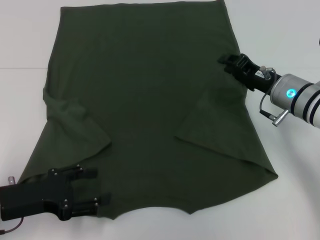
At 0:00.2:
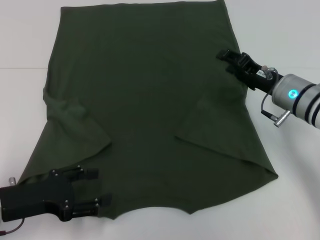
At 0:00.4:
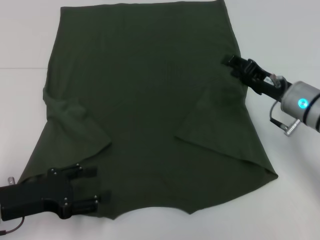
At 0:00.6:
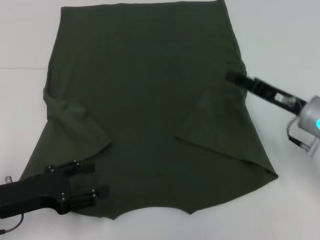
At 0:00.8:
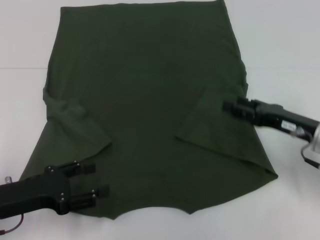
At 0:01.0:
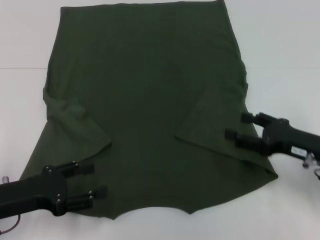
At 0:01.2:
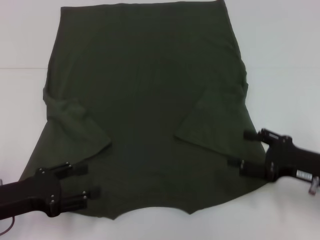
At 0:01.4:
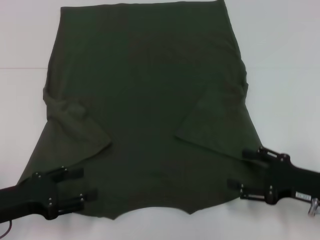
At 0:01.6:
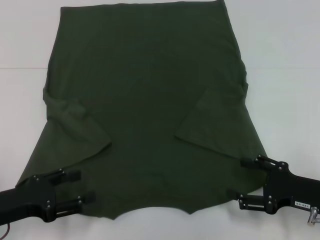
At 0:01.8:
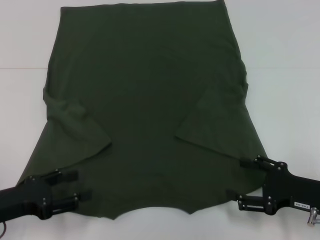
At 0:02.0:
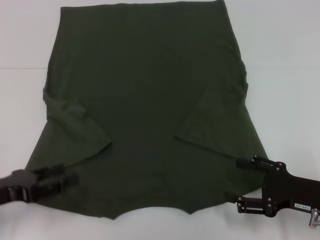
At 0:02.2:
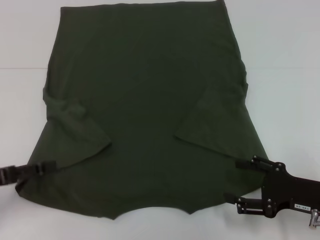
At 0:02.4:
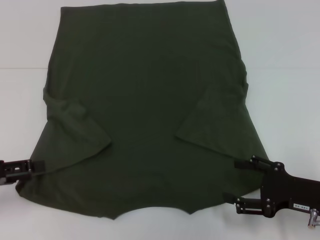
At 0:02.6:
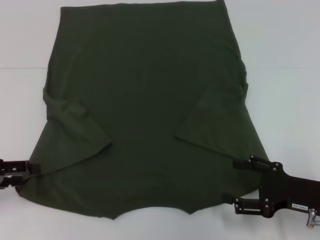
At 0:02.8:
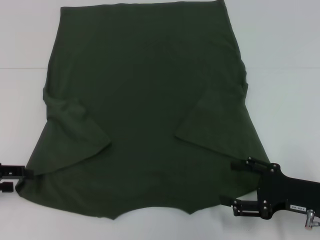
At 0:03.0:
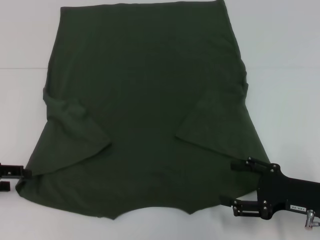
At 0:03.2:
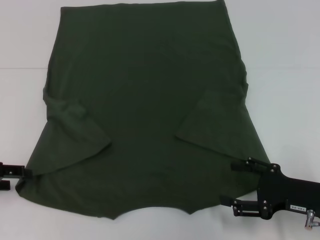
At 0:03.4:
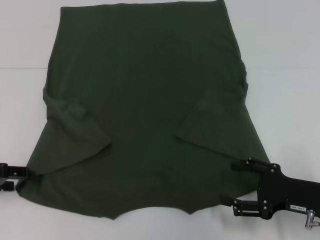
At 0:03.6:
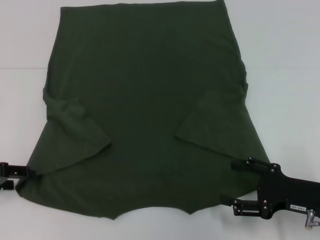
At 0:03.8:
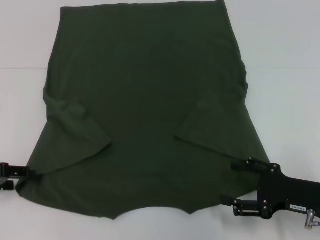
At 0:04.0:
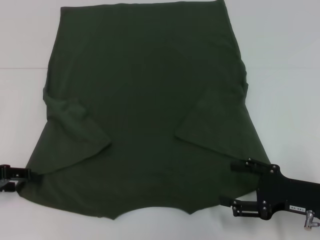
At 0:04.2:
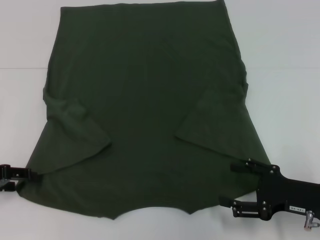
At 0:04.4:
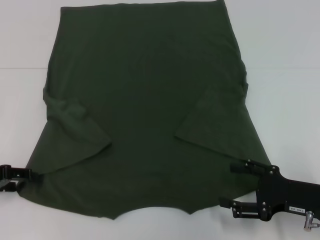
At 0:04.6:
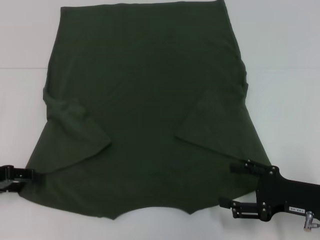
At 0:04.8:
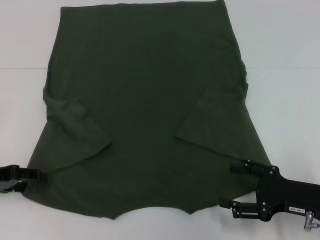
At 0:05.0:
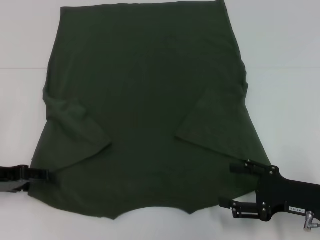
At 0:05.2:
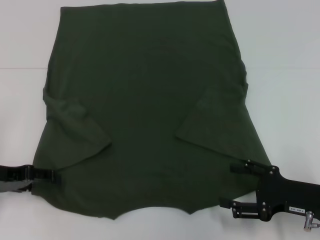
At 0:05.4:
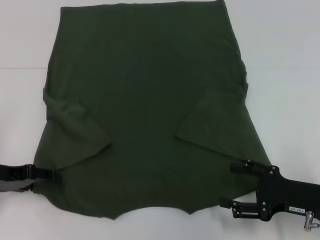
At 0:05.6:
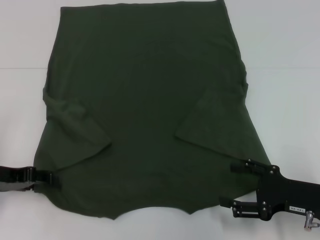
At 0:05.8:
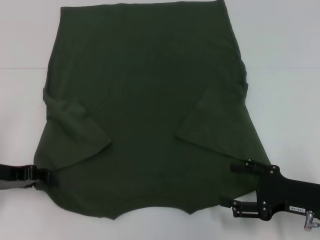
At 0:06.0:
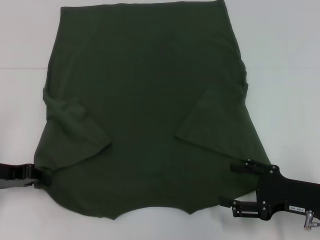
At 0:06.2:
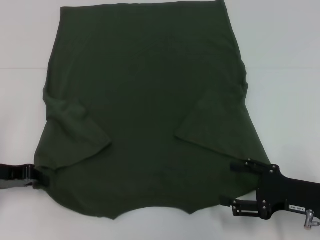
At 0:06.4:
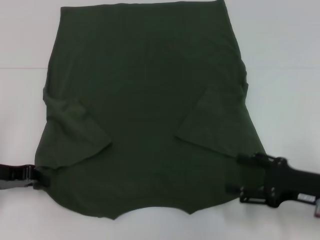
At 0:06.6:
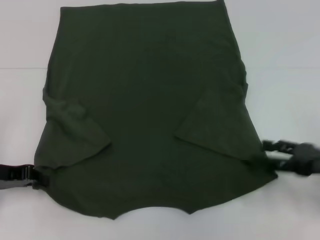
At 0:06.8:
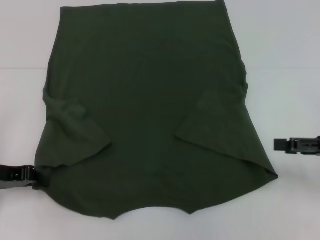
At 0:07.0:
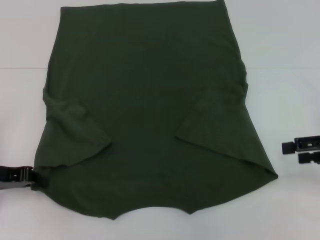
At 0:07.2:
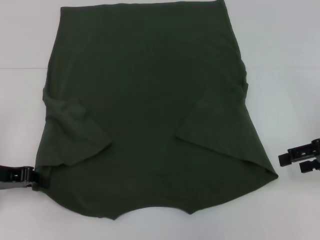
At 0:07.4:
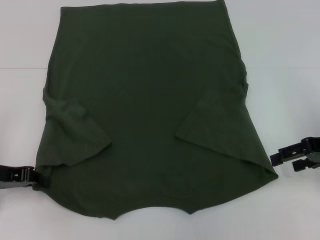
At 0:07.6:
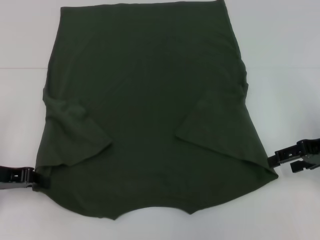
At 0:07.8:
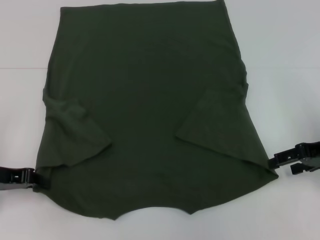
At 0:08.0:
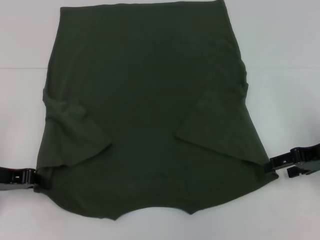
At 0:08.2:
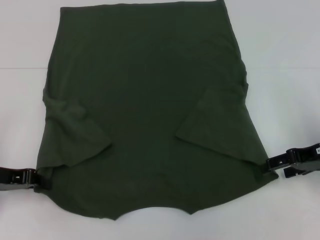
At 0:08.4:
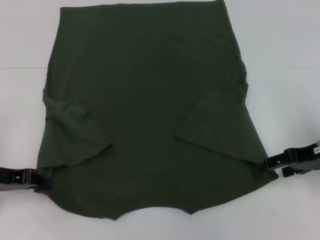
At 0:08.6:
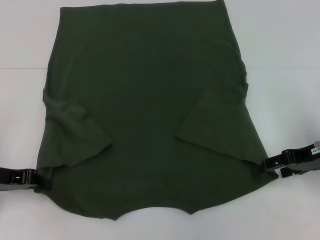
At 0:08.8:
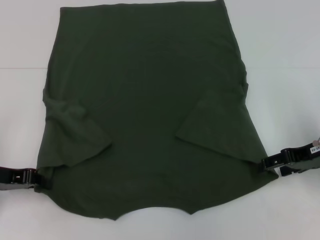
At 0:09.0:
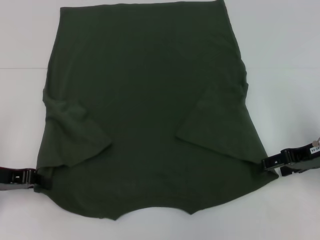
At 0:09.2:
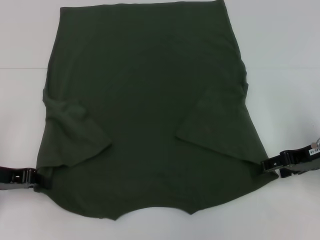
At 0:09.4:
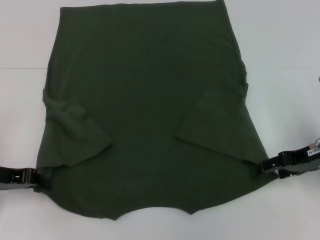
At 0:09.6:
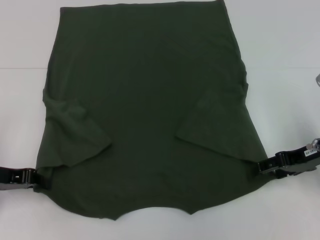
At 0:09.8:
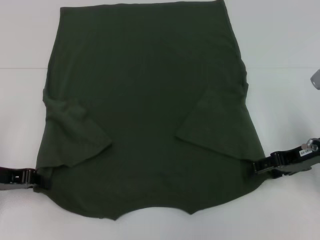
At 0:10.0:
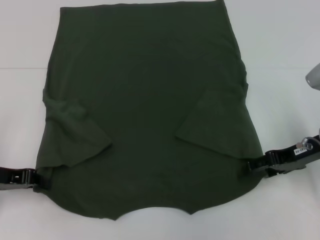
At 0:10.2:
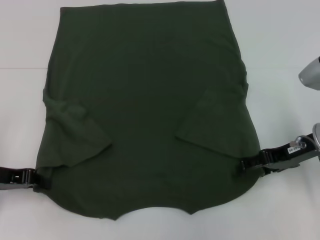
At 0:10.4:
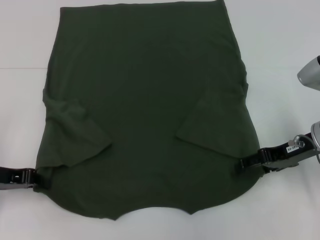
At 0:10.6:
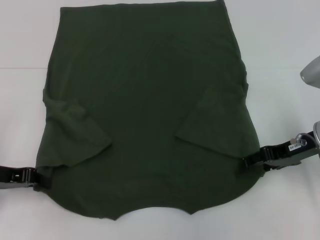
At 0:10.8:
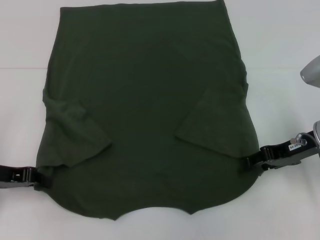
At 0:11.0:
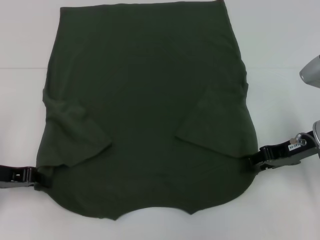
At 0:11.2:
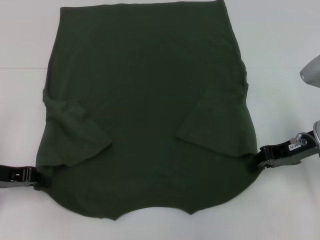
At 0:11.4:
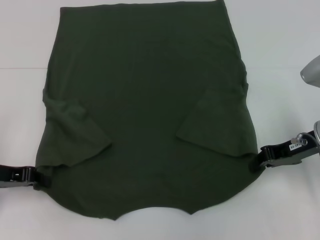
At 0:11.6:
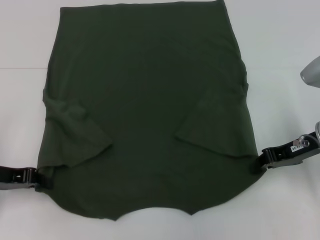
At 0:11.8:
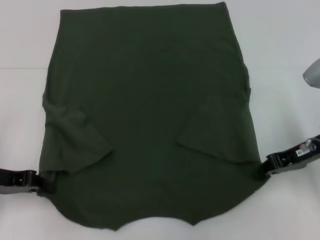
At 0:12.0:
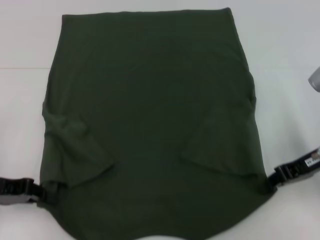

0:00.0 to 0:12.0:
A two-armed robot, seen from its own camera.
Step, 0:01.4 to 0:06.2: Grab the bottom left corner with your left hand.
0:00.0 to 0:01.6: The right gripper heads backward and to the right, covering about 15 cm, and opens up.
0:01.6 to 0:03.0: The left gripper moves to the left, forward and upward, approximately 10 cm.
0:03.0 to 0:04.4: The grippers make only small movements.
0:04.4 to 0:06.0: The left gripper closes up.
0:06.0 to 0:07.6: The right gripper goes approximately 15 cm upward and forward.
0:07.6 to 0:09.0: There are only small adjustments of the grippers.
0:09.0 to 0:10.4: The grippers move only a little.
0:10.4 to 0:12.0: The right gripper closes up.

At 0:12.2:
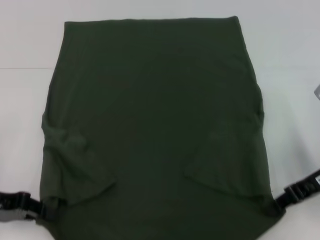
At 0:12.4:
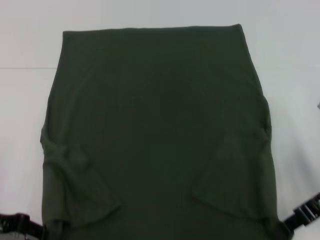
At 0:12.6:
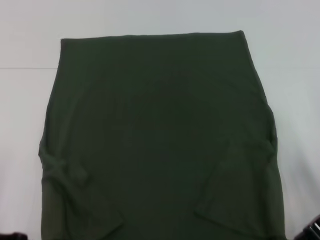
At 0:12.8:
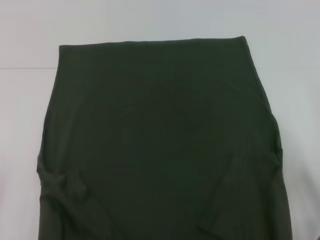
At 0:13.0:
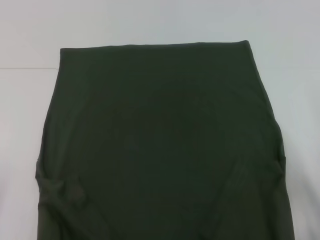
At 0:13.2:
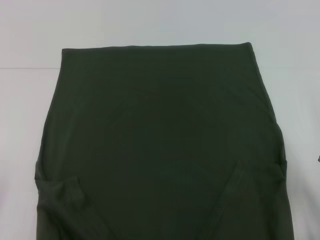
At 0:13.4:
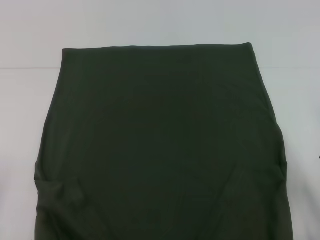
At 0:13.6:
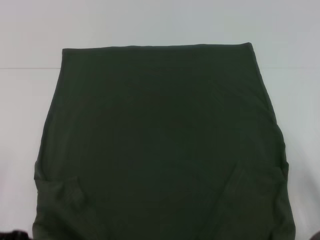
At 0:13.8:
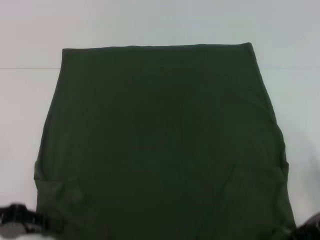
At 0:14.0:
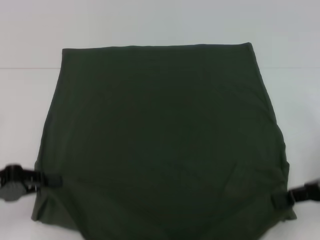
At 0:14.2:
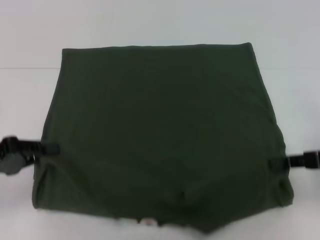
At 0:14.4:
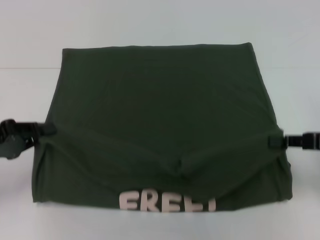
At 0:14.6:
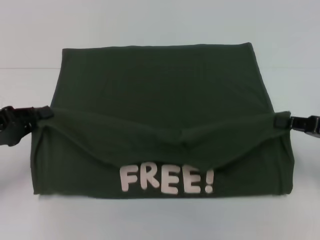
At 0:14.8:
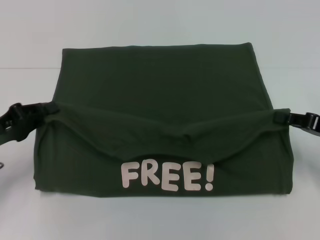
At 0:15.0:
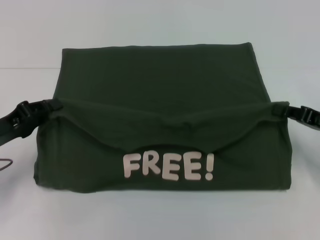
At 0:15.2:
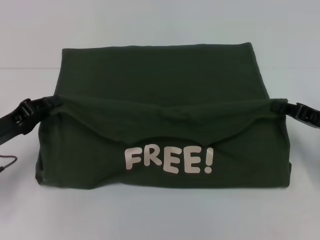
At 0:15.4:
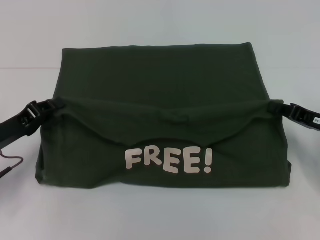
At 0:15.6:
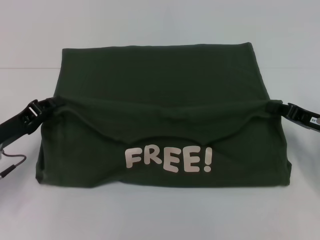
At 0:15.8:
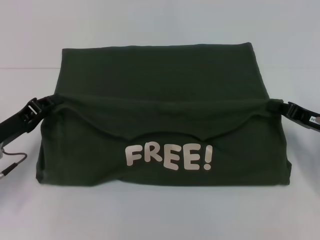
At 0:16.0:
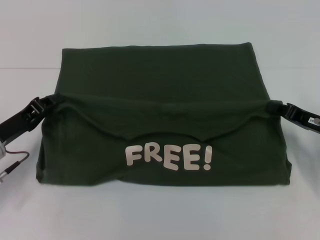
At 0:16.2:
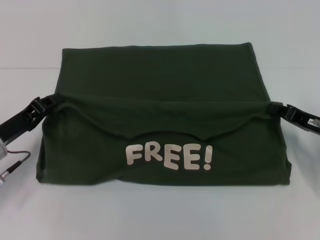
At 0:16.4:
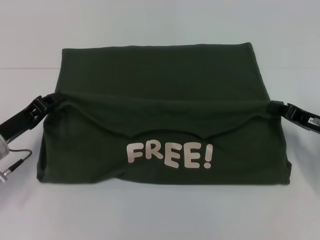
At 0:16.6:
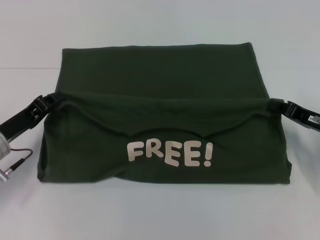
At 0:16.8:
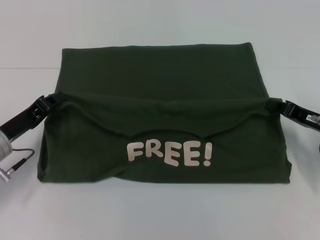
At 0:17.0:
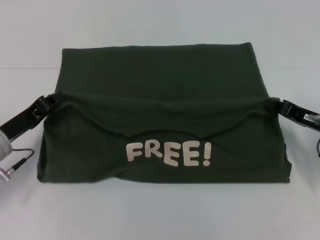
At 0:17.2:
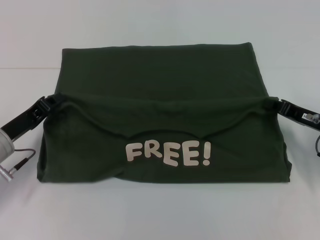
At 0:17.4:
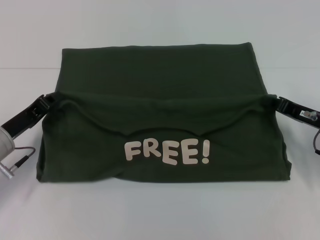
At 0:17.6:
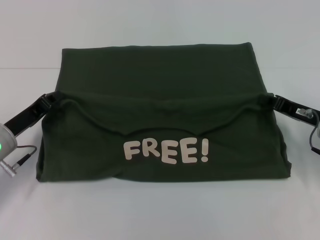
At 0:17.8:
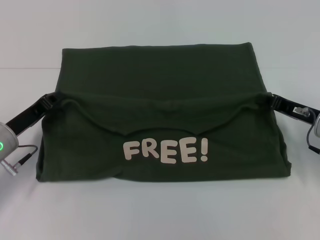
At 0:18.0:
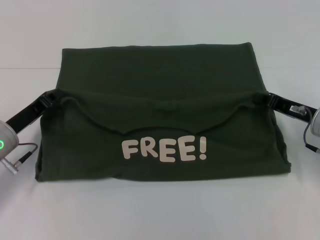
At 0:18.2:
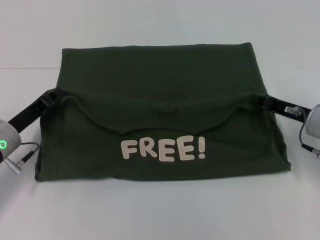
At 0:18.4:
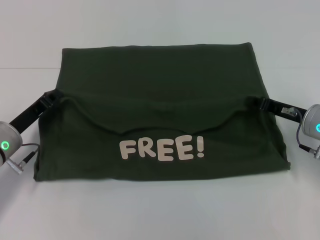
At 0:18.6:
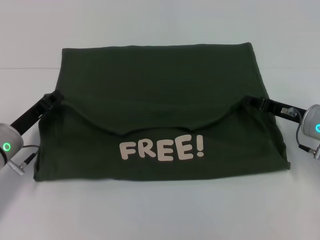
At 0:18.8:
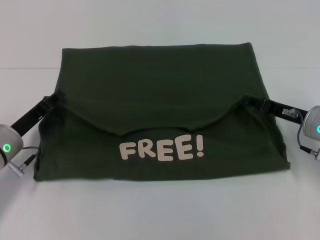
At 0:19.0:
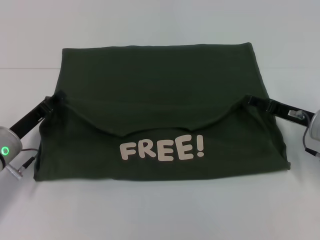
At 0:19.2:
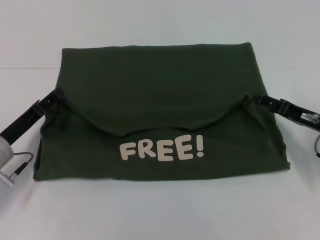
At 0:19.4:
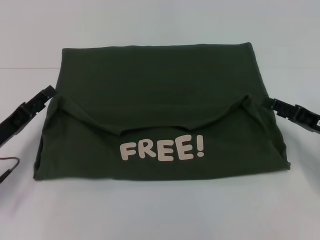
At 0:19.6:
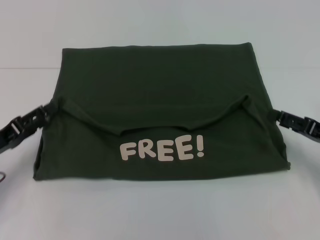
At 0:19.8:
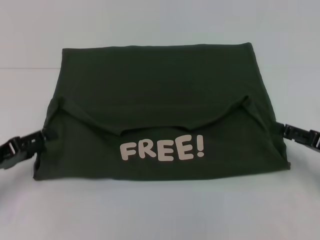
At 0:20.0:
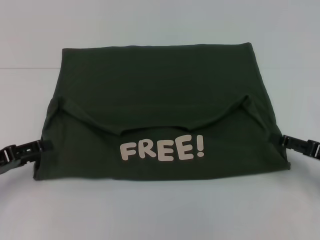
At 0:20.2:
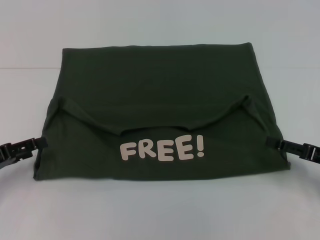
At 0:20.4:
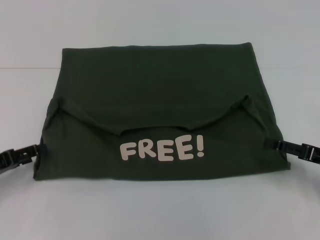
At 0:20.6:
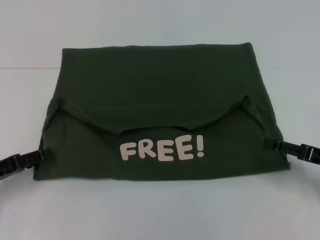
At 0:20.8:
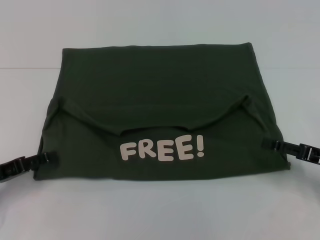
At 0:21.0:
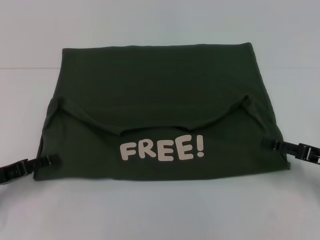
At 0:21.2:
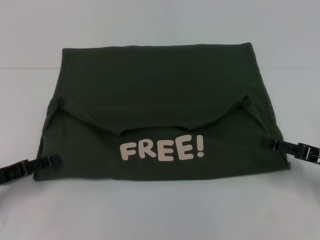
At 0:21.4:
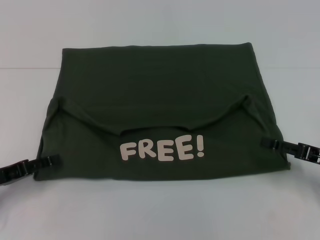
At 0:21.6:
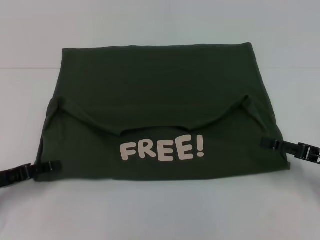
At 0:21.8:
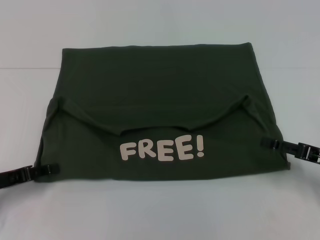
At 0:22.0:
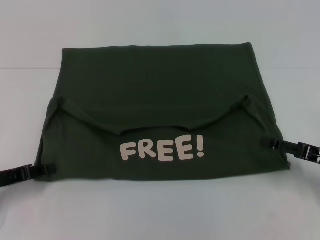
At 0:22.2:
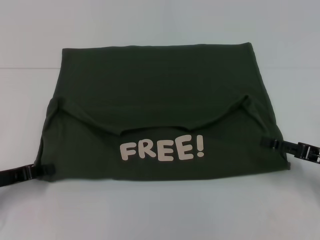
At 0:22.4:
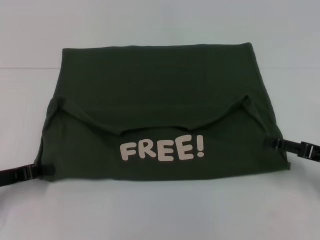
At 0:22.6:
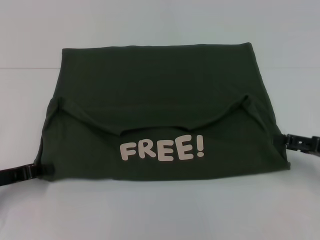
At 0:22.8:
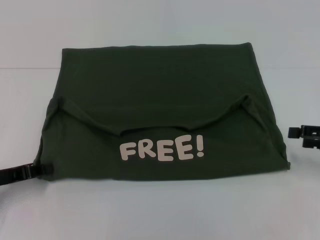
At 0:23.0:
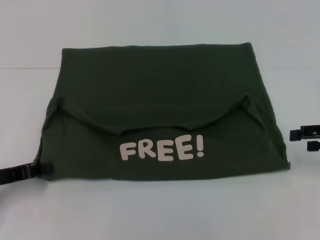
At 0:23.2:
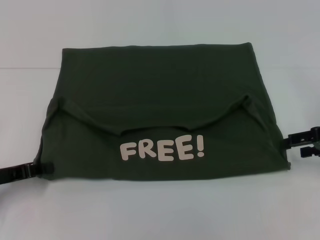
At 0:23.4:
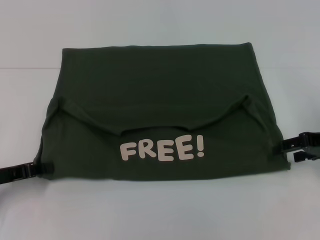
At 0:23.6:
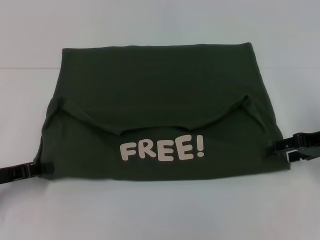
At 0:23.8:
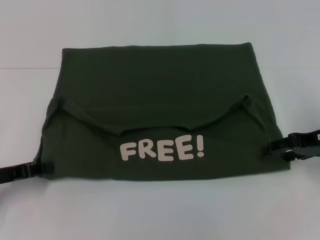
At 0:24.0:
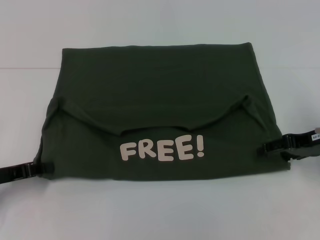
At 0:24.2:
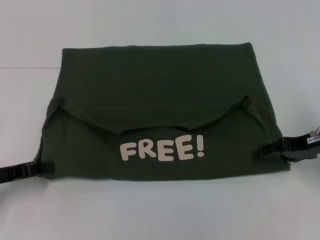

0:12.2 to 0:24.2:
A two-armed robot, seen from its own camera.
Step, 0:12.2 to 0:19.6: Fold the clothes with your left hand.
Step, 0:12.2 to 0:19.6: Fold the clothes with your right hand.
0:12.2 to 0:13.8: The right gripper moves about 5 cm.
0:13.8 to 0:15.2: The grippers both shift forward by about 5 cm.
0:15.2 to 0:16.6: There are only small adjustments of the grippers.
0:16.6 to 0:18.2: The grippers move only a little.
0:18.2 to 0:19.8: The left gripper shifts roughly 10 cm to the left and backward, and opens its fingers. The right gripper travels backward and to the right by about 10 cm, and opens up.
0:19.8 to 0:21.2: The grippers stay close to where they were, moving slightly.
0:21.2 to 0:22.6: The left gripper closes.
0:22.6 to 0:24.2: The right gripper heads forward and to the left, covering roughly 10 cm.
